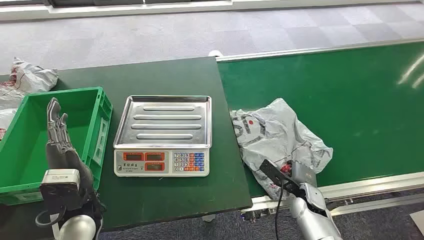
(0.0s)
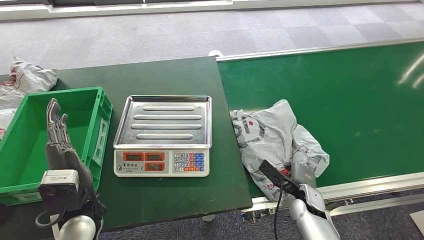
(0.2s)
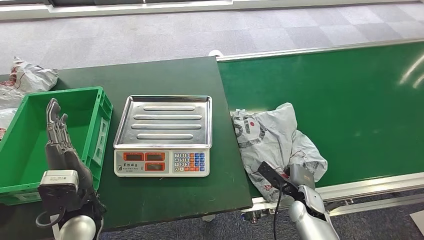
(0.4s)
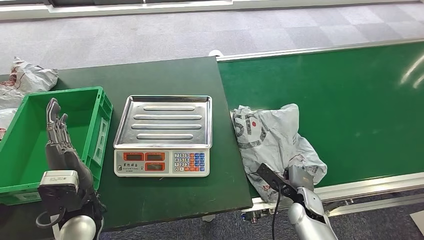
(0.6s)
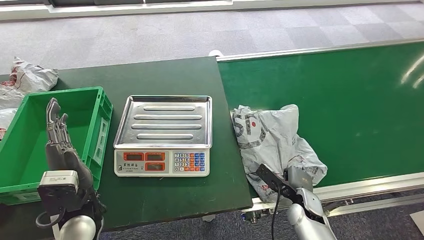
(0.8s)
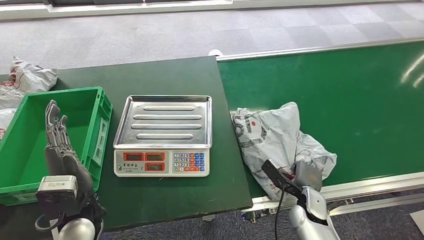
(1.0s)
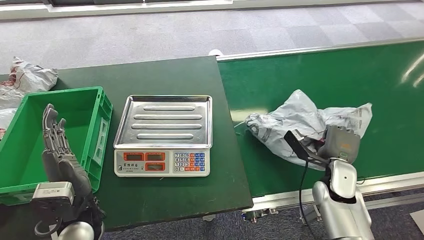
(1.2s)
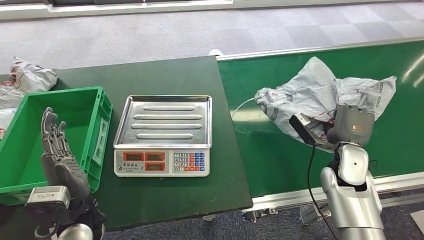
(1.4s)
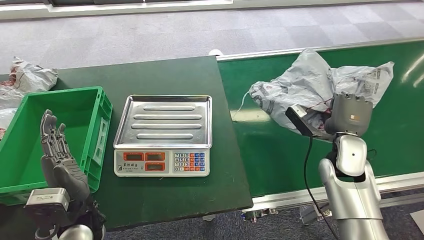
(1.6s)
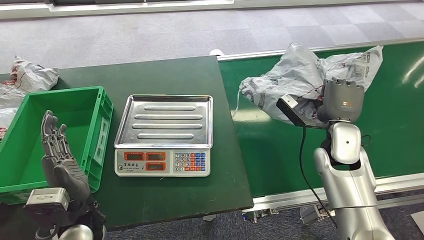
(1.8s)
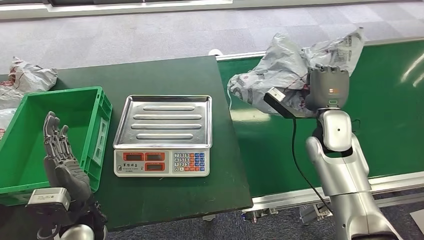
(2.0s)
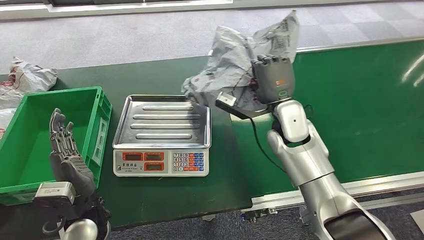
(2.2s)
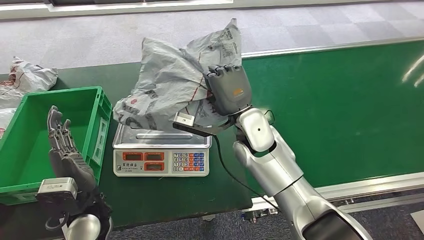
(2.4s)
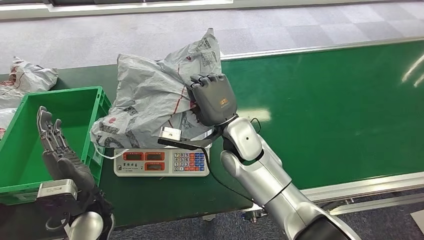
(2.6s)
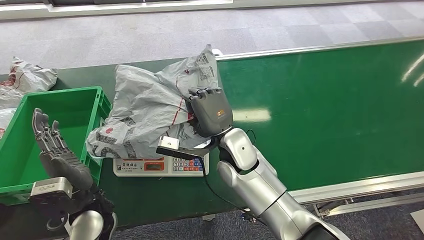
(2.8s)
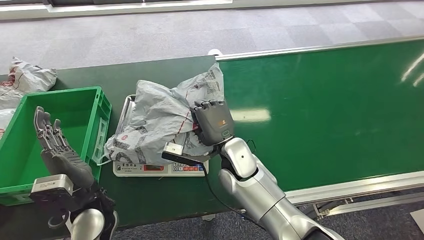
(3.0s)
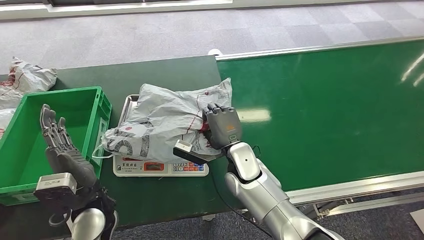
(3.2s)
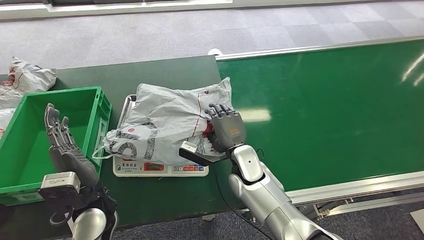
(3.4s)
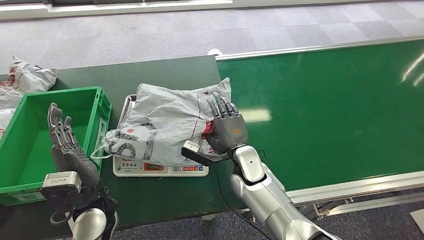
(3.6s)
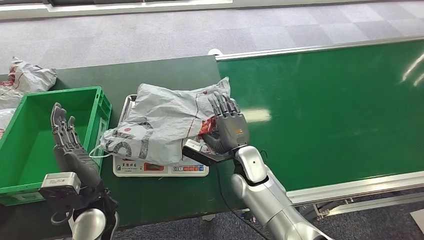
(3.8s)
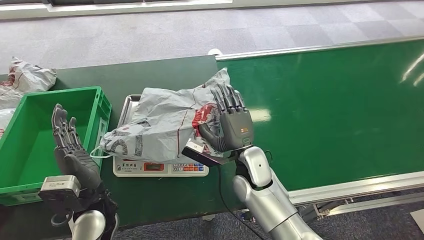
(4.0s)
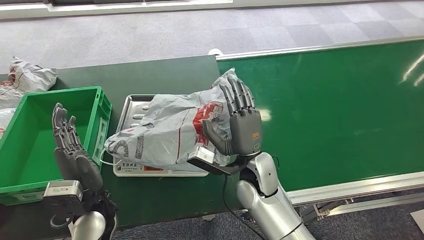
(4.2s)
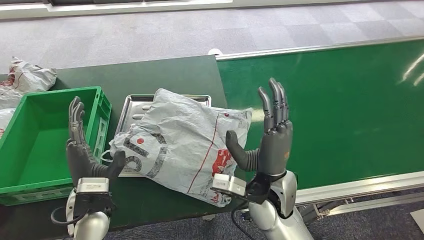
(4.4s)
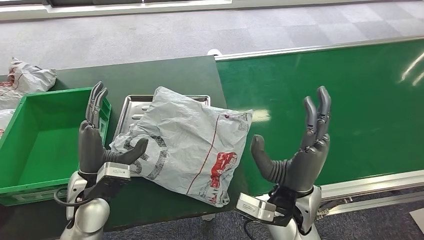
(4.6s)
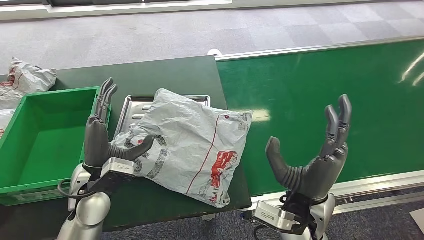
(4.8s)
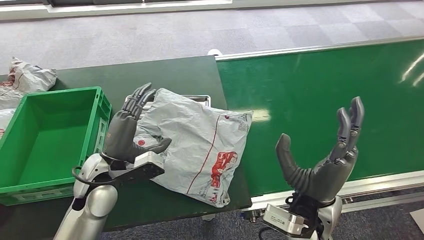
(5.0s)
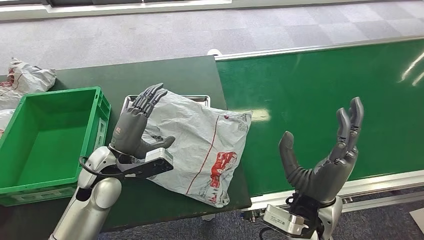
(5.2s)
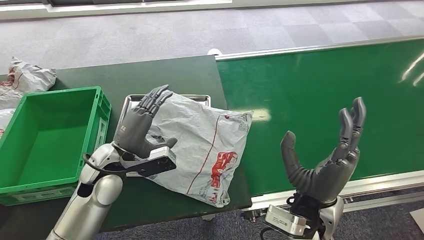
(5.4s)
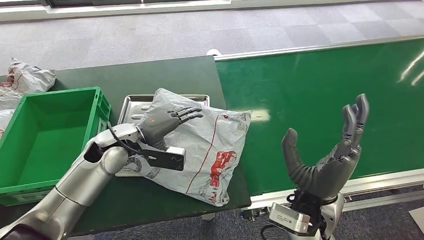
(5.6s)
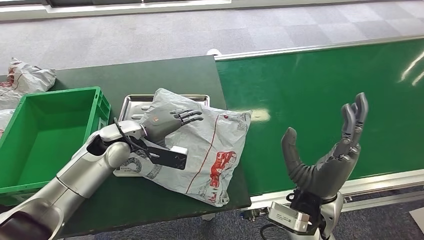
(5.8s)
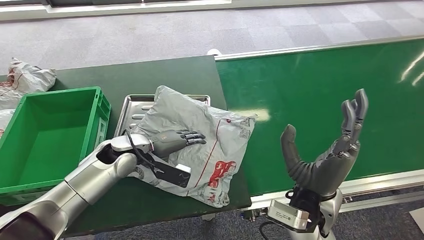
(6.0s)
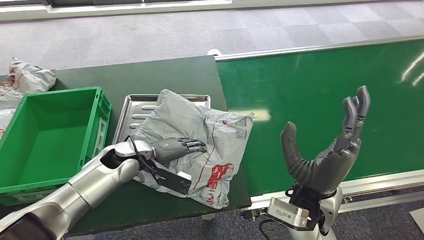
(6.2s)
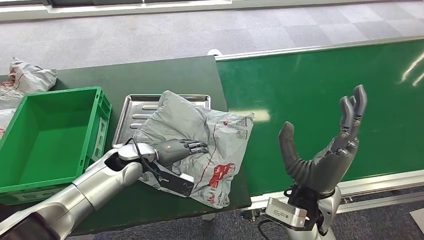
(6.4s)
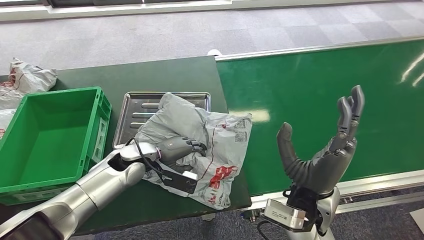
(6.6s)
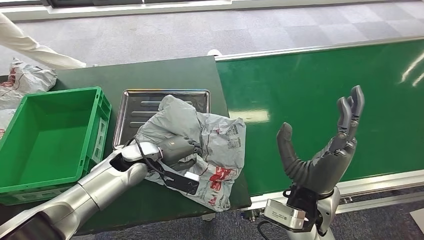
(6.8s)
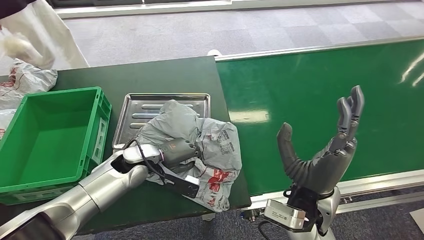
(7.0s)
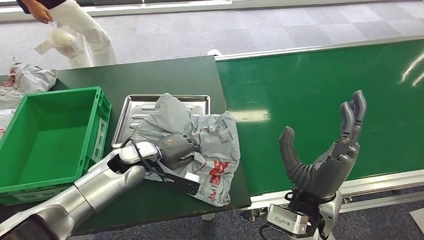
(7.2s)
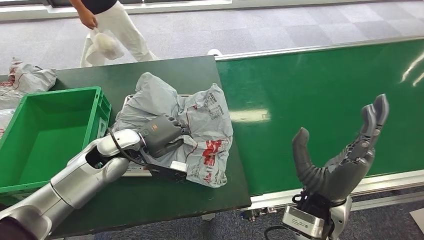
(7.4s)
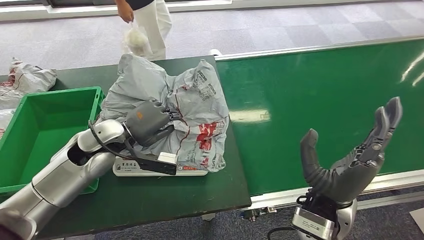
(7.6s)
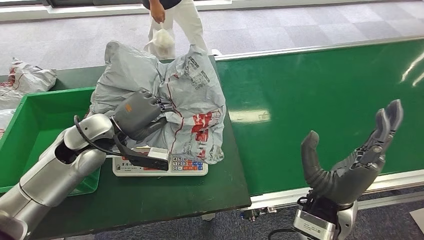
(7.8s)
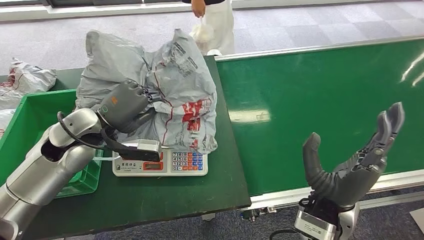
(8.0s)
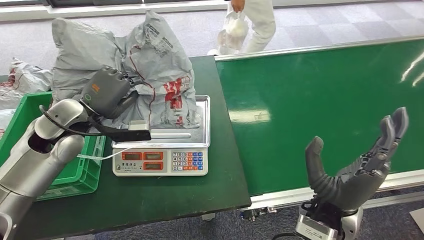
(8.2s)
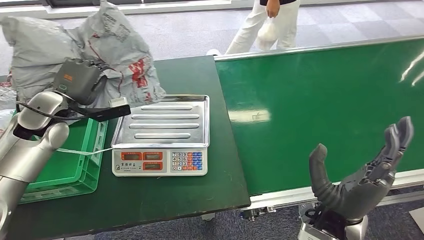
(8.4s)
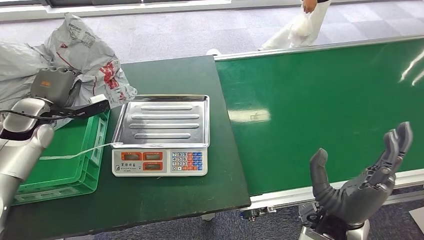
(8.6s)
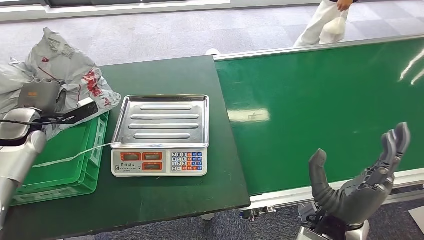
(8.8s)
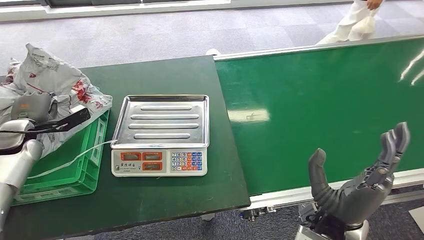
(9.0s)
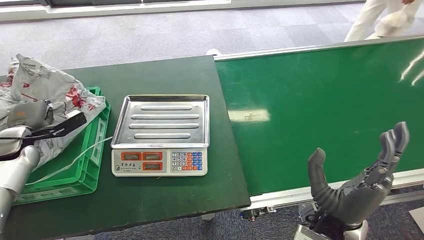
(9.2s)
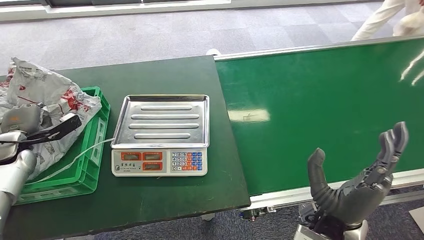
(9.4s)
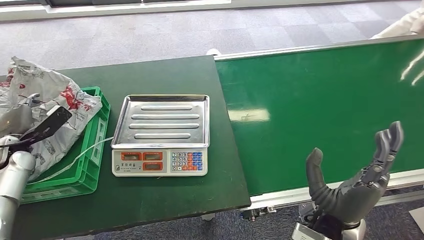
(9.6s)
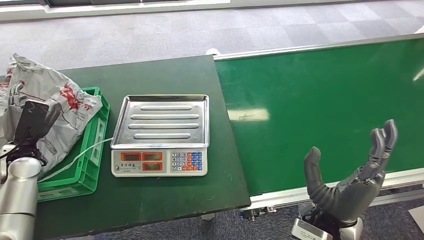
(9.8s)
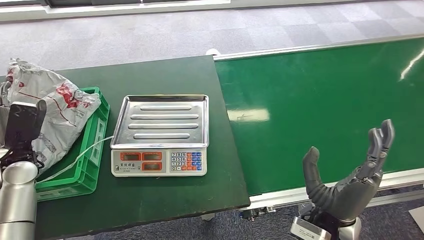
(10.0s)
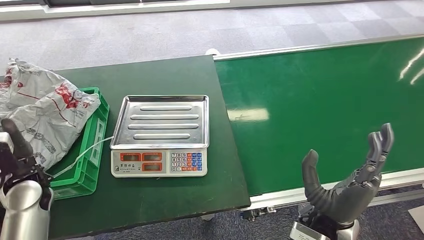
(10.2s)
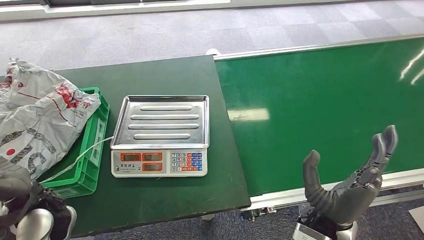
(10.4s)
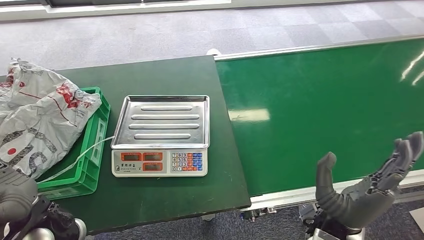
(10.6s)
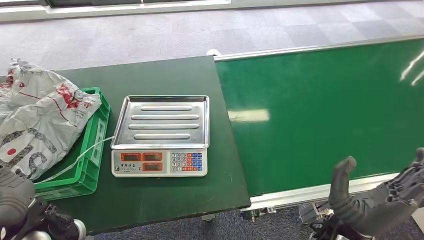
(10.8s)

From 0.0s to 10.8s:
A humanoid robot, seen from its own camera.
Step, from 0.0s to 1.6s: Pick up the package from the conveyor belt.
Step, from 2.0s to 5.2s: Place the package onto the inbound machine.
Step, from 5.4s to 8.6s: Pick up the package from the inbound machine.
Step, from 9.0s to 10.6s: Place the package into the parcel locker.
From 4.6s to 6.2s: The left hand travels forward by approximately 10 cm.
From 9.2s to 10.8s: The left hand goes roughly 30 cm to the right and backward.
